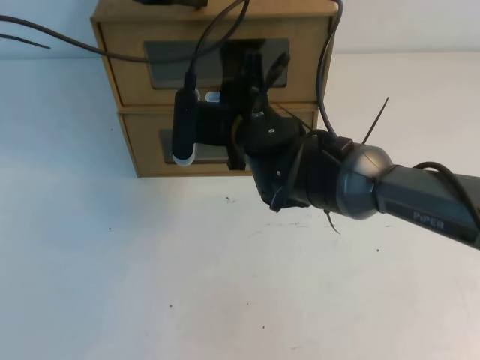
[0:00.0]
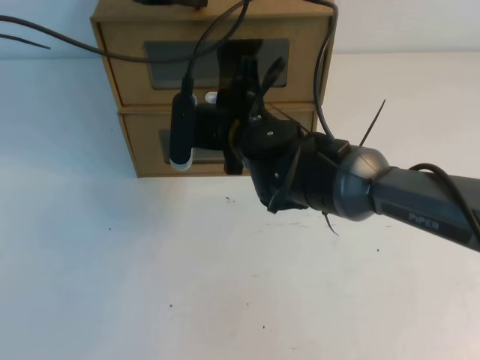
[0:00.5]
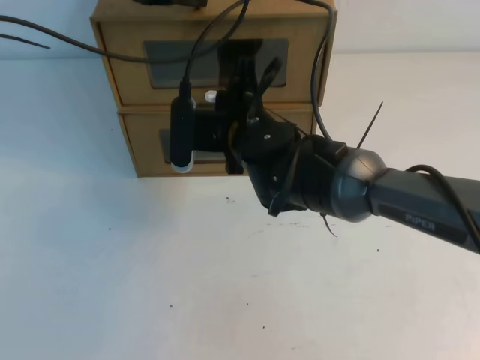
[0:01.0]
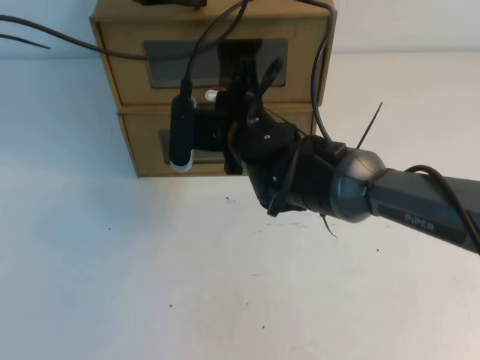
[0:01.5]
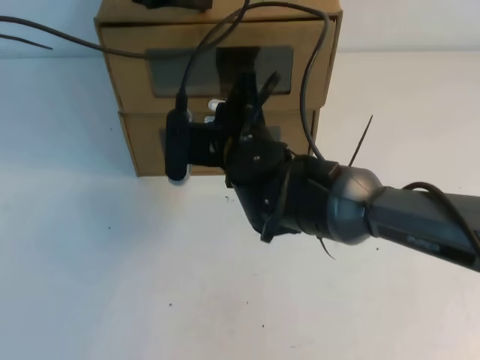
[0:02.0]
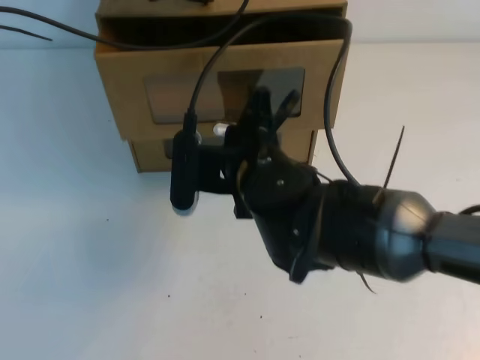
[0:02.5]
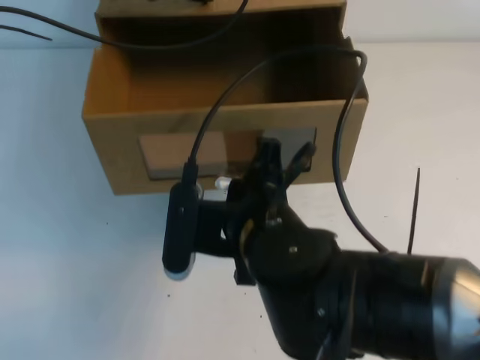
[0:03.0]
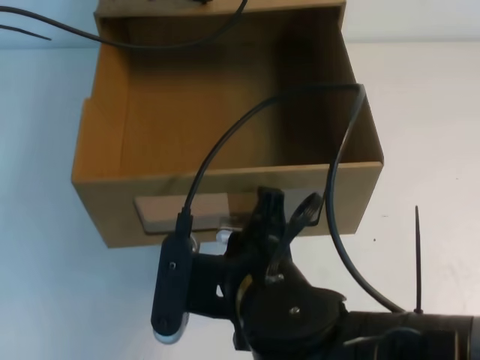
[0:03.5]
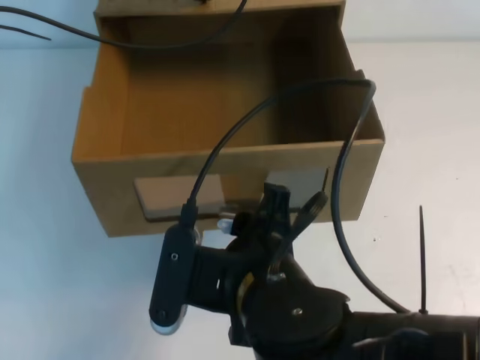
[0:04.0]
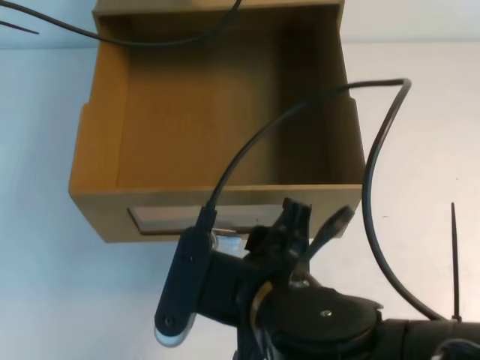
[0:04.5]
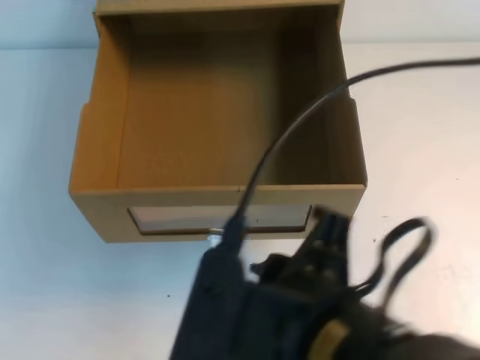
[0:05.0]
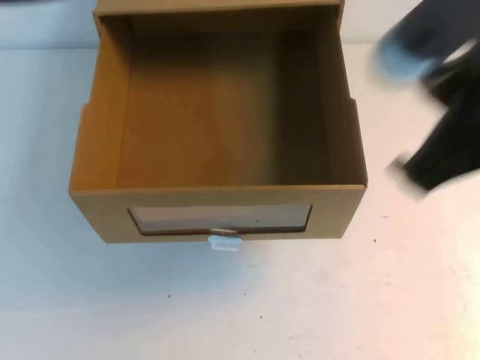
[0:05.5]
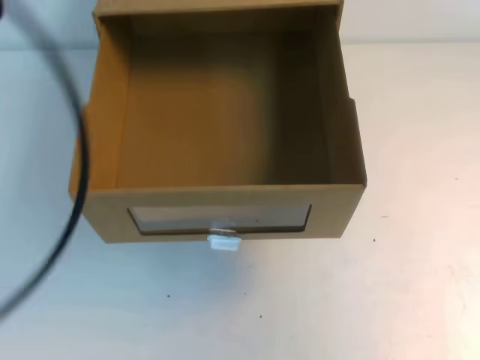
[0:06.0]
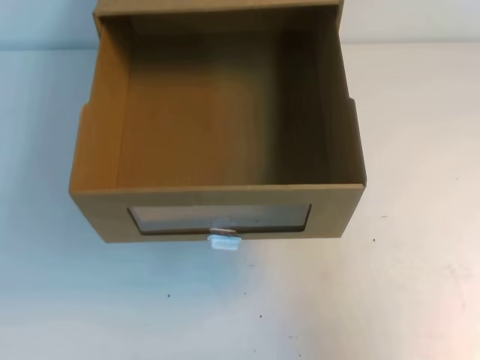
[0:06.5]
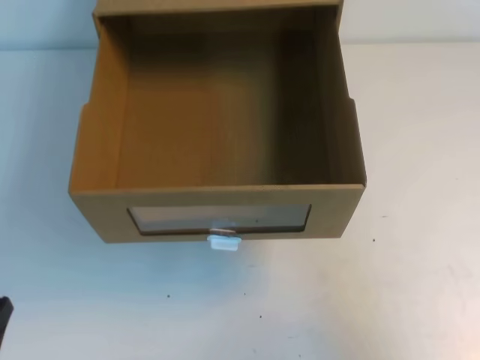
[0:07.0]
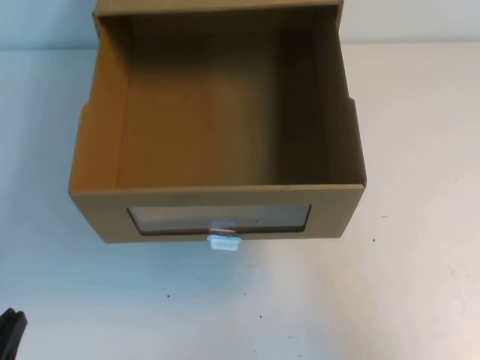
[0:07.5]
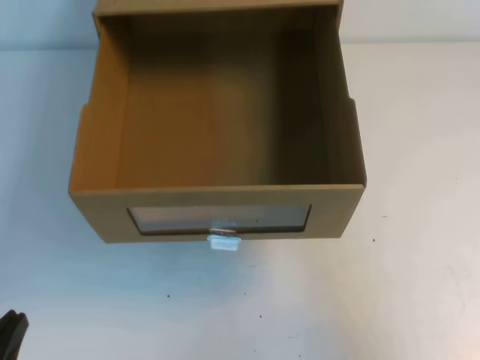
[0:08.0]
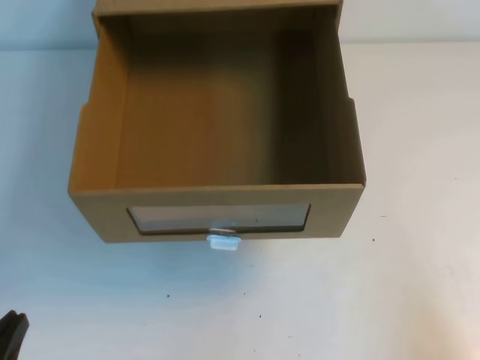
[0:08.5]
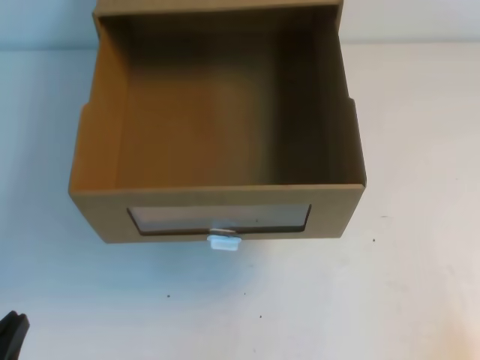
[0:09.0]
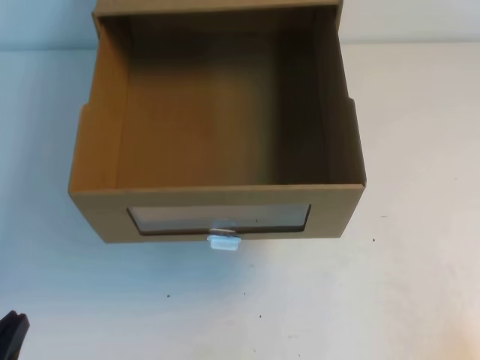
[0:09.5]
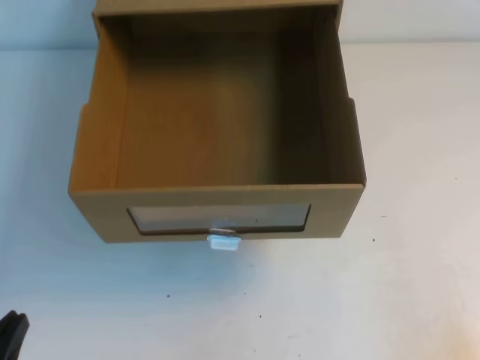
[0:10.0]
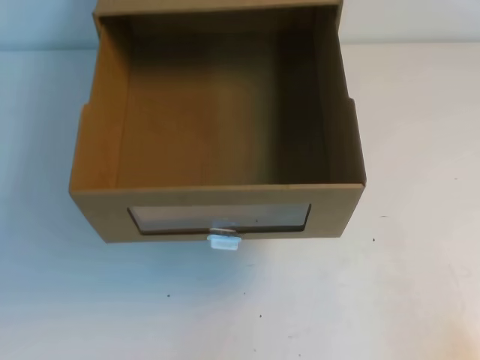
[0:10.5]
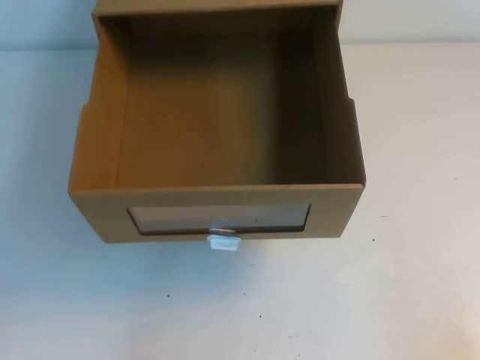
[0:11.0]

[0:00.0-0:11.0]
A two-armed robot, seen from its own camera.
Task of the whole recording: open the shoebox on the table.
Step, 0:00.0 to 0:11.0: Open the shoe box.
0:00.0 to 0:02.0: The right gripper closes up.
0:02.0 to 0:03.5: The right gripper is displaced backward by approximately 20 cm.
0:03.5 to 0:05.5: The right gripper shifts approximately 20 cm upward and to the right, and opens and closes again, while the left gripper goes roughly 25 cm backward and upward.
0:05.5 to 0:07.5: The left gripper heads downward and backward, covering some 40 cm; the right gripper heads downward and to the right, covering approximately 20 cm.
0:07.5 to 0:09.0: The right gripper travels downward and backward by roughly 15 cm.

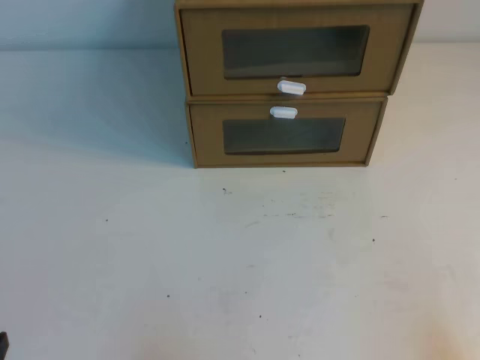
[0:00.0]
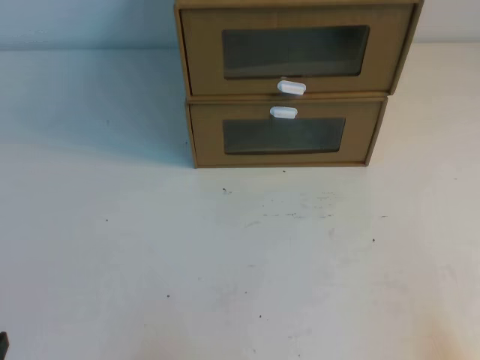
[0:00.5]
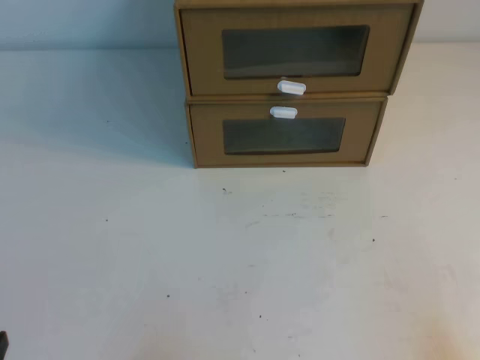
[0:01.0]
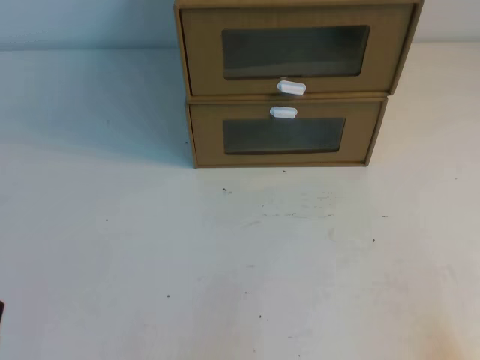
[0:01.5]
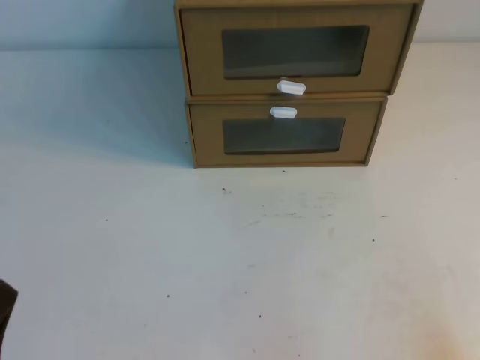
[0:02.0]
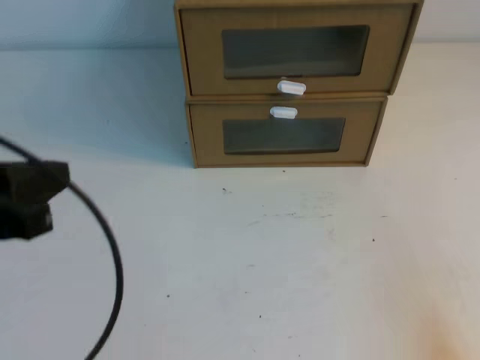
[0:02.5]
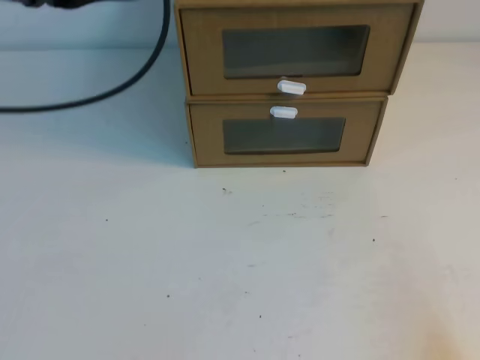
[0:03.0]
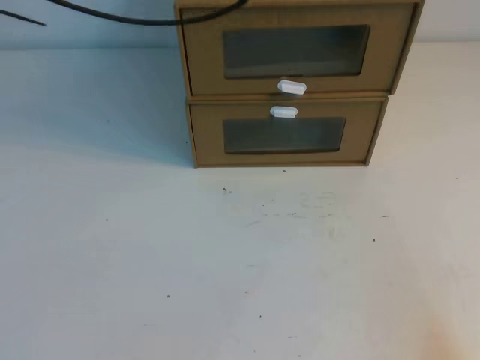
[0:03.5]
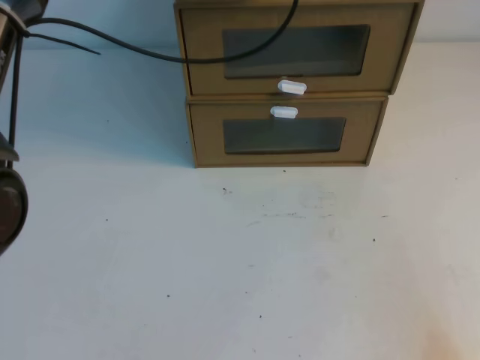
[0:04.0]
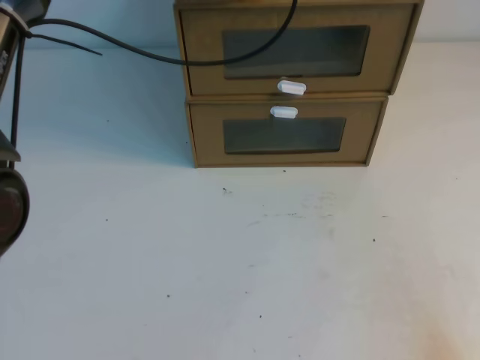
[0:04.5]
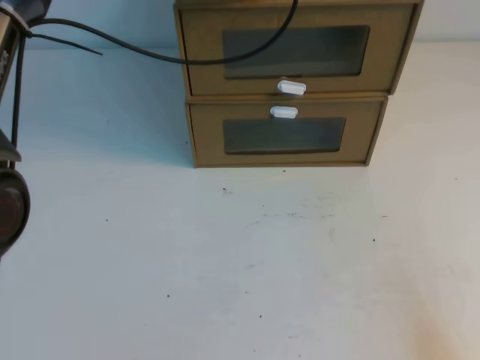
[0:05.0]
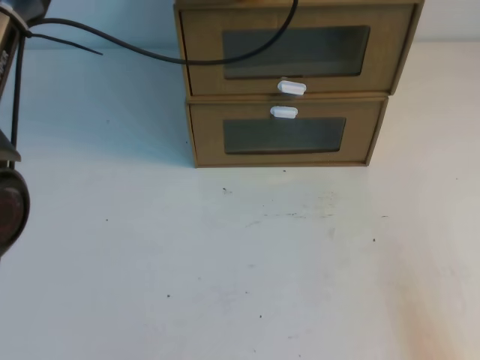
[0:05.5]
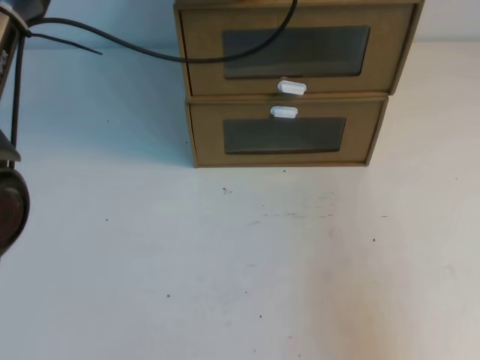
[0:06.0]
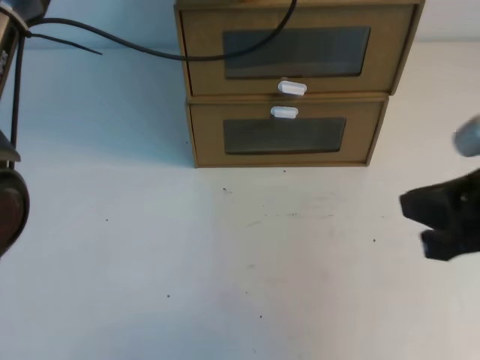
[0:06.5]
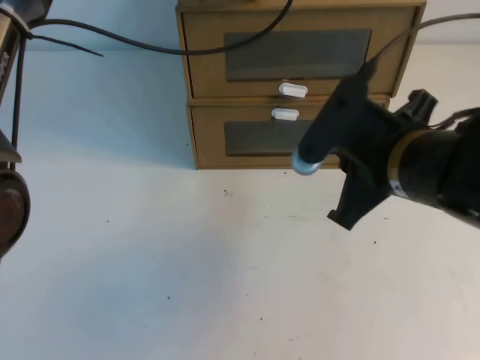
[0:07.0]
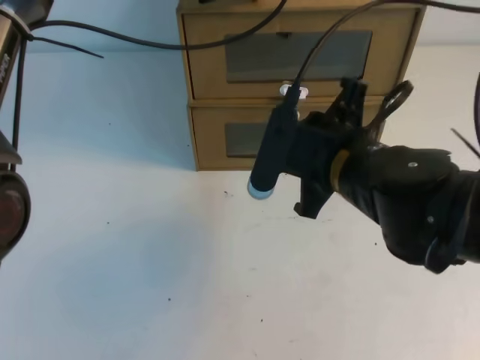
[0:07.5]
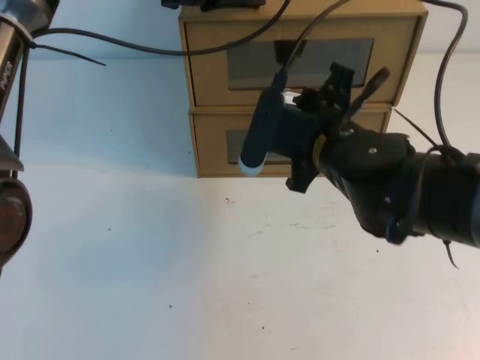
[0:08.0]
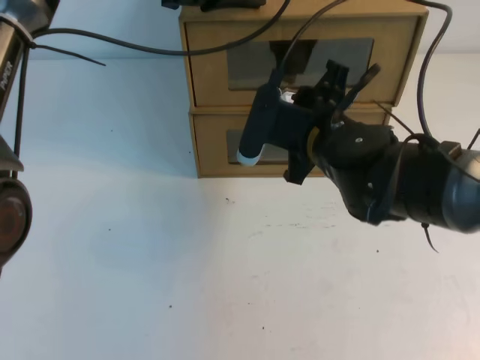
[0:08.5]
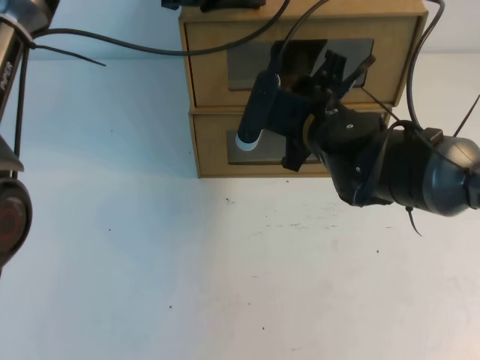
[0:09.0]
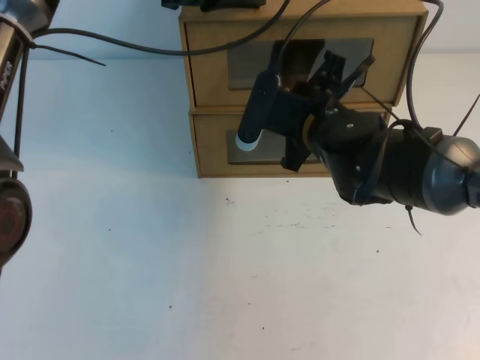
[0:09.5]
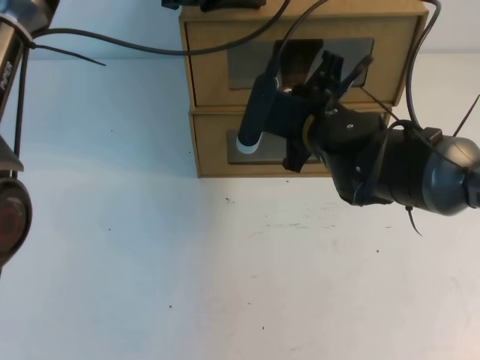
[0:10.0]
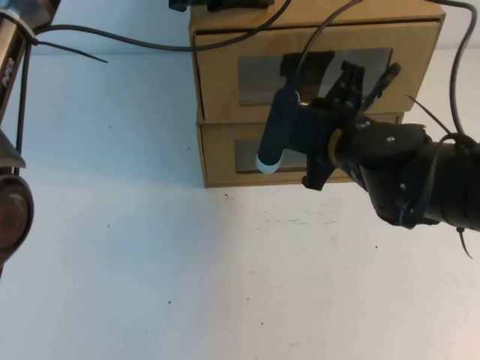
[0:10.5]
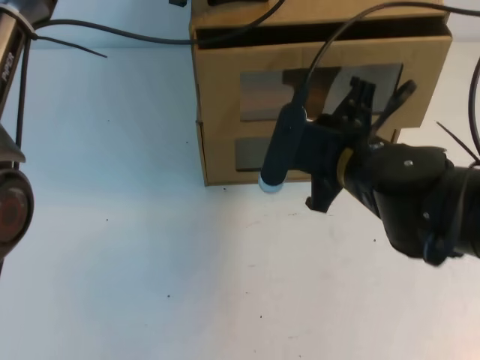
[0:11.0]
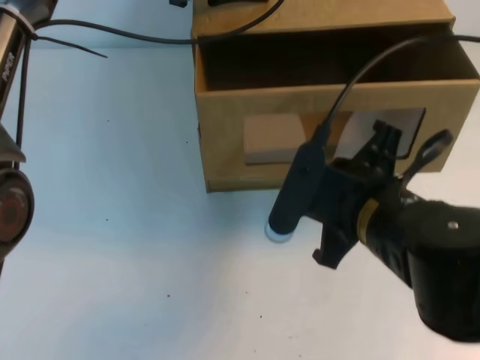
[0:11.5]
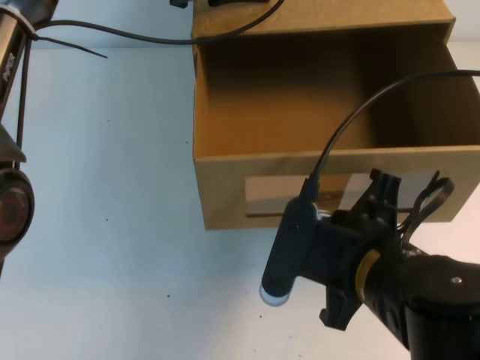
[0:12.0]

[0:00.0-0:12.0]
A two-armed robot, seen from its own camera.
Task of the whole recording: open the shoebox on the table.
0:02.0 to 0:04.0: The left gripper travels forward, upward and to the right by some 50 cm.
0:04.0 to 0:06.0: The right gripper is displaced upward by roughly 10 cm.
0:06.0 to 0:08.0: The right gripper moves forward and to the left, some 30 cm, and opens up.
0:08.0 to 0:10.0: The right gripper heads forward, covering approximately 5 cm, and closes up.
0:10.0 to 0:12.0: The right gripper shifts approximately 20 cm backward.

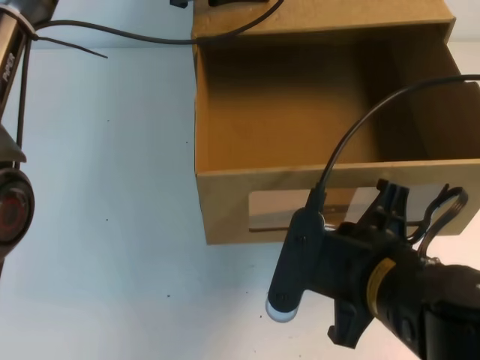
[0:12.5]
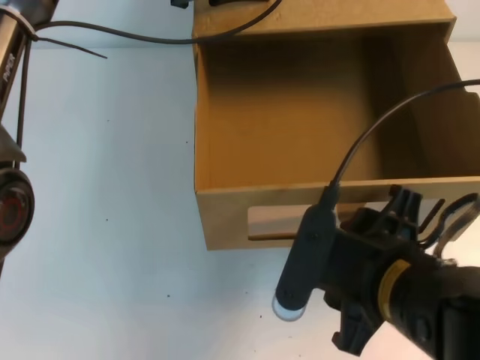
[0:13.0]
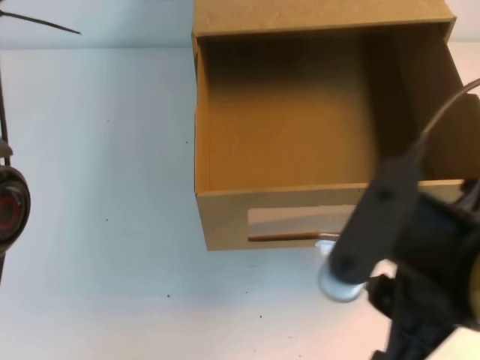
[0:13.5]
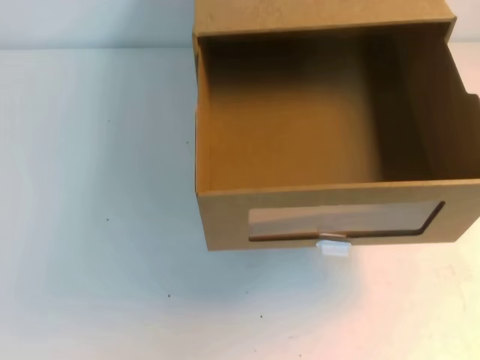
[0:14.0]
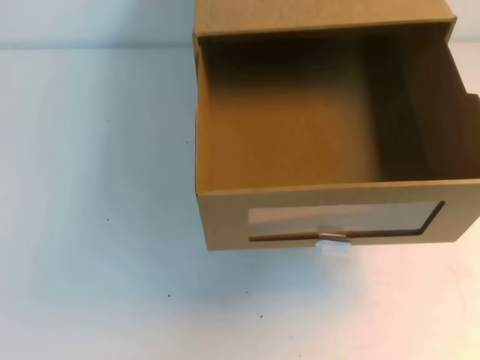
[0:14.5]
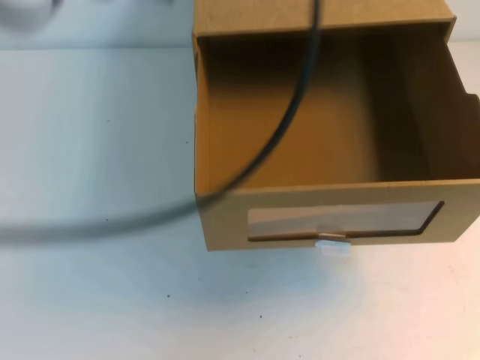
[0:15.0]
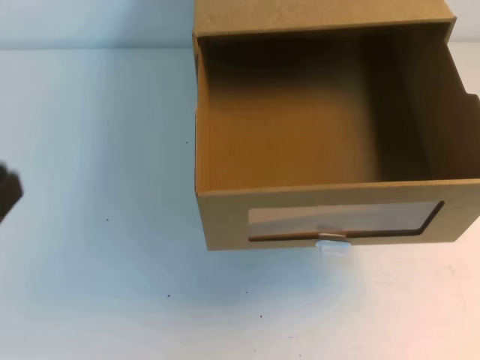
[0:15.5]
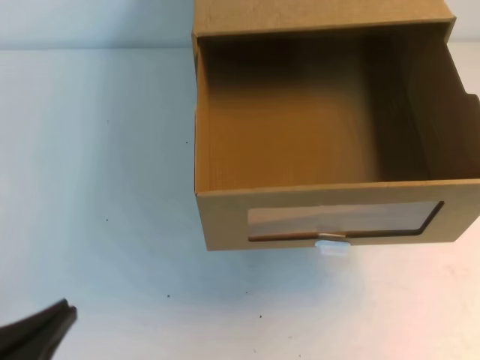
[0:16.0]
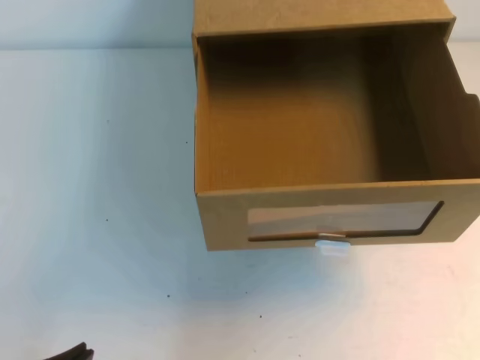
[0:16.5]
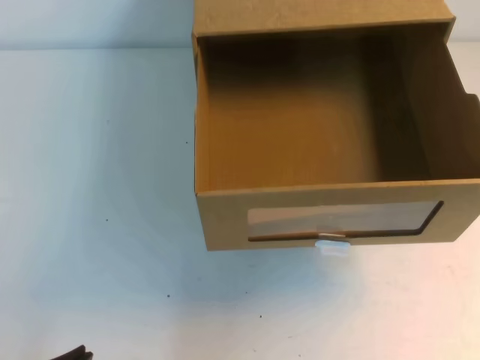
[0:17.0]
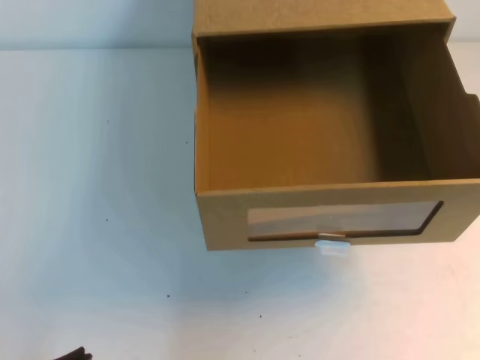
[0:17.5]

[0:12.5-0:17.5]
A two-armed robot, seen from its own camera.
Task of the whole recording: open the shoebox on the table.
0:12.5 to 0:15.0: The right gripper travels upward and to the right by roughly 25 cm, and opens, then closes again; the left gripper shifts approximately 30 cm backward and upward.
0:15.0 to 0:17.5: The left gripper moves downward and backward, approximately 40 cm.
